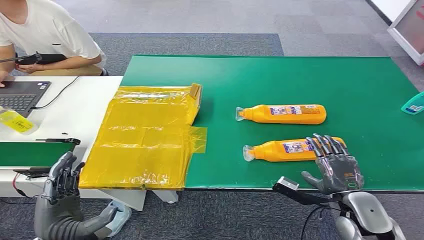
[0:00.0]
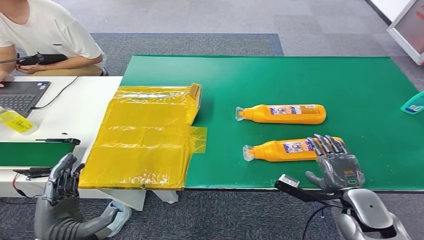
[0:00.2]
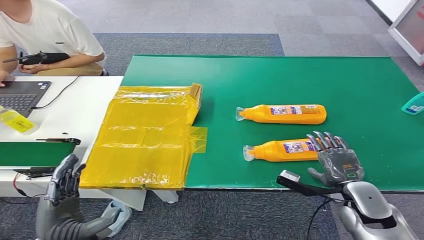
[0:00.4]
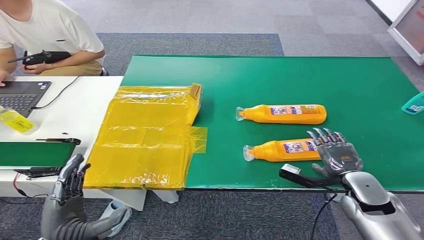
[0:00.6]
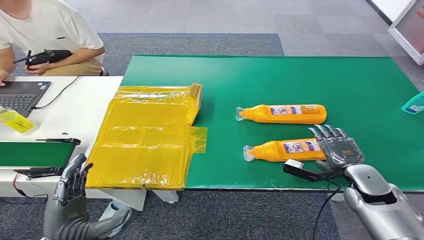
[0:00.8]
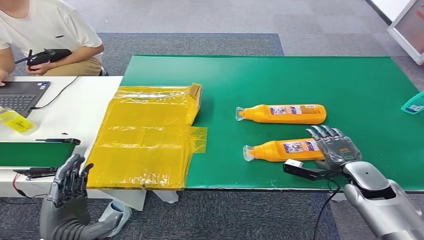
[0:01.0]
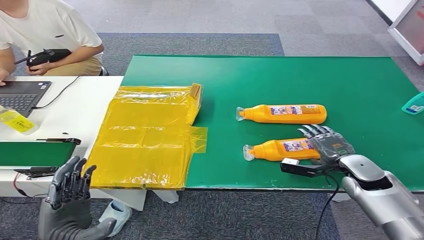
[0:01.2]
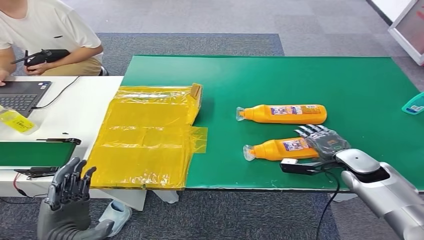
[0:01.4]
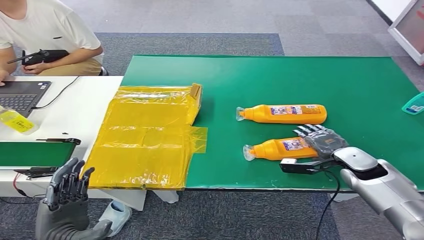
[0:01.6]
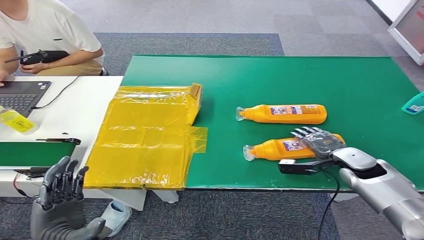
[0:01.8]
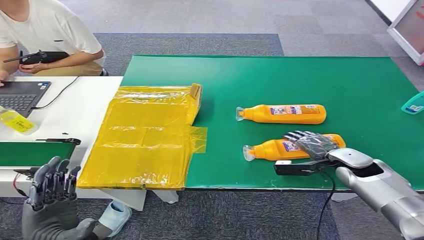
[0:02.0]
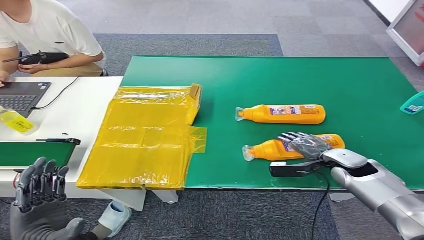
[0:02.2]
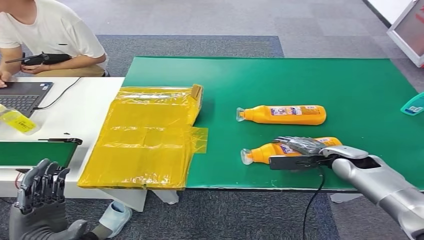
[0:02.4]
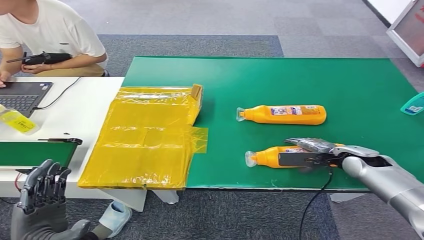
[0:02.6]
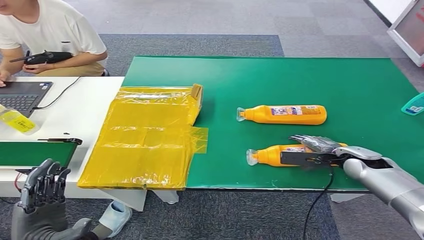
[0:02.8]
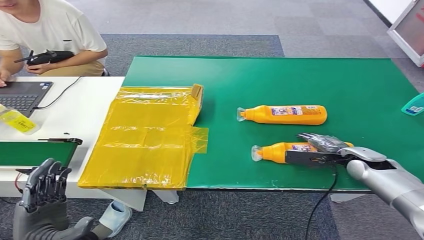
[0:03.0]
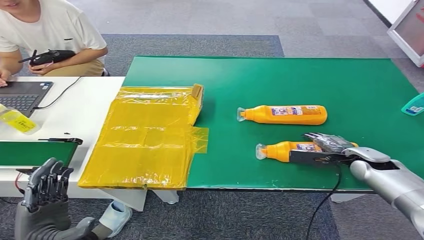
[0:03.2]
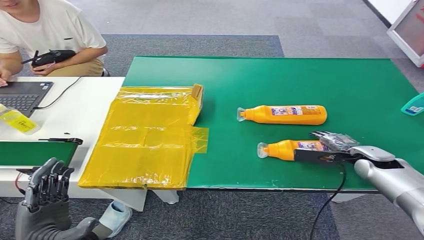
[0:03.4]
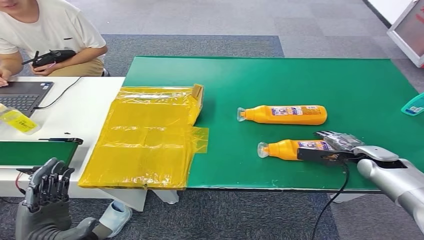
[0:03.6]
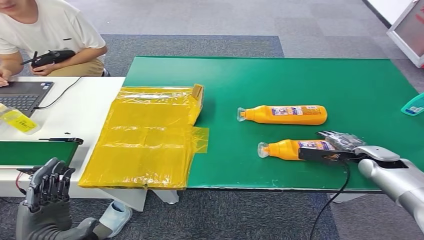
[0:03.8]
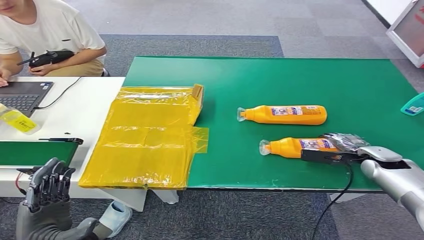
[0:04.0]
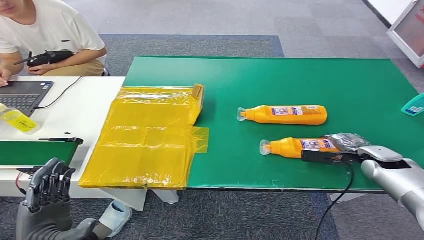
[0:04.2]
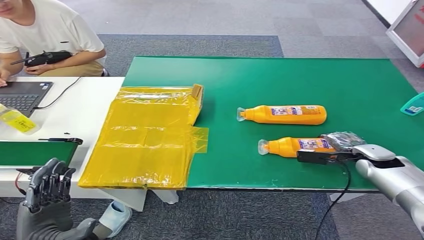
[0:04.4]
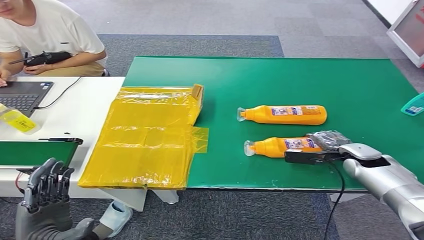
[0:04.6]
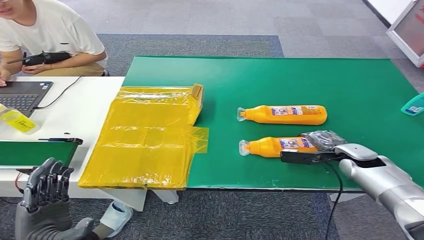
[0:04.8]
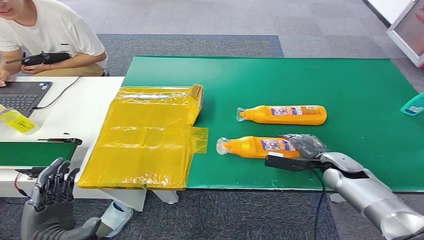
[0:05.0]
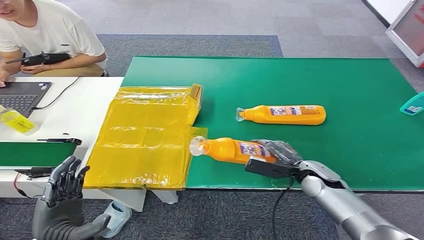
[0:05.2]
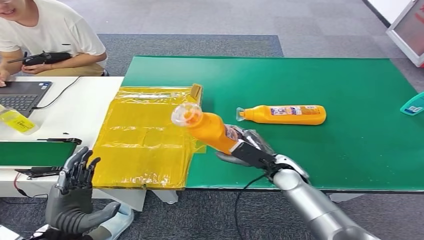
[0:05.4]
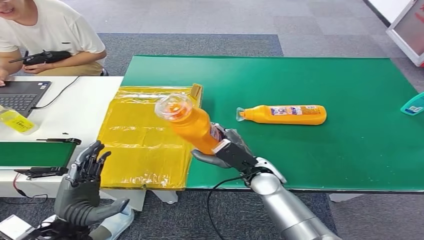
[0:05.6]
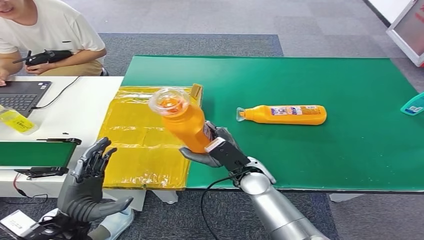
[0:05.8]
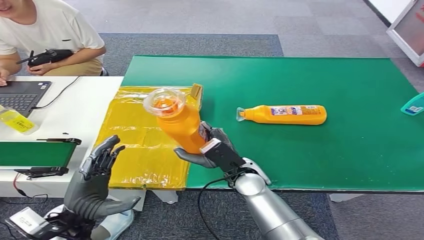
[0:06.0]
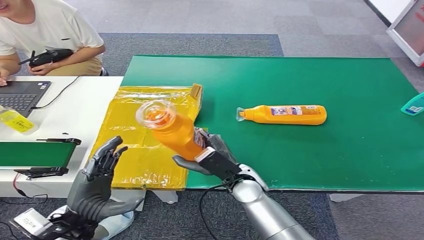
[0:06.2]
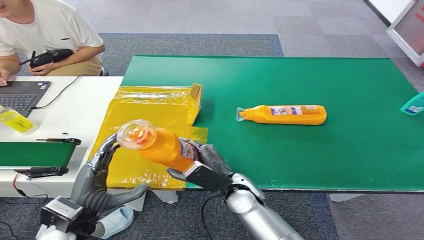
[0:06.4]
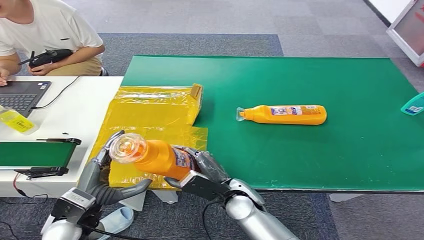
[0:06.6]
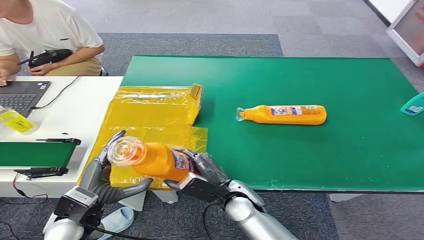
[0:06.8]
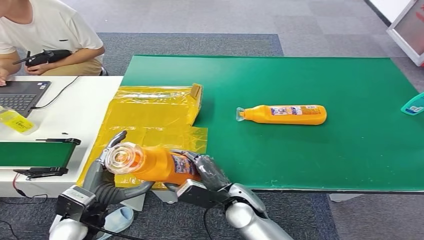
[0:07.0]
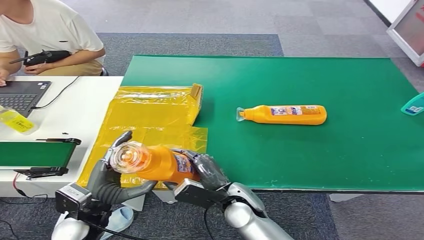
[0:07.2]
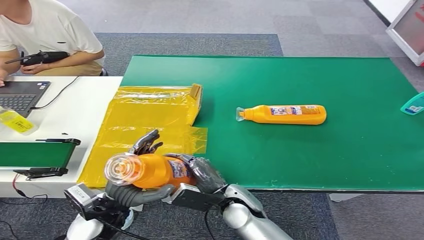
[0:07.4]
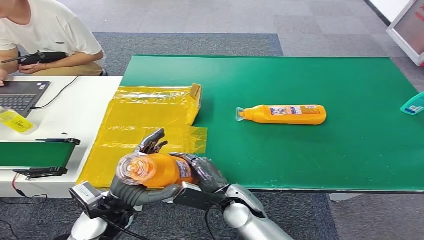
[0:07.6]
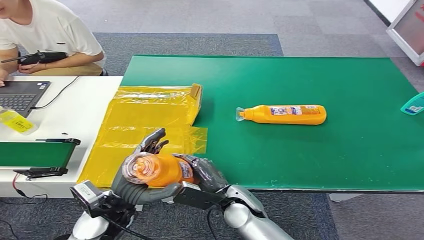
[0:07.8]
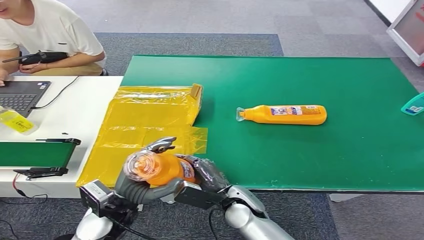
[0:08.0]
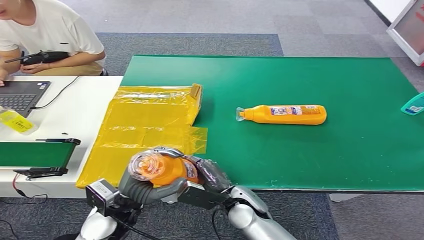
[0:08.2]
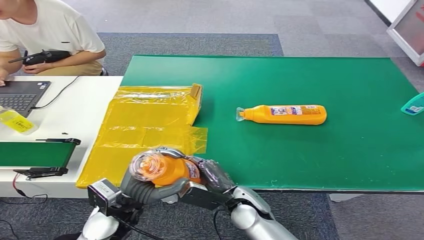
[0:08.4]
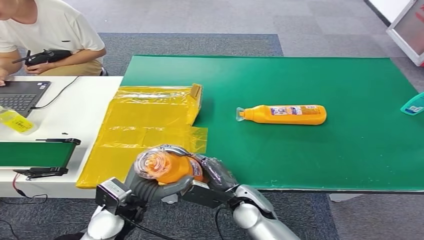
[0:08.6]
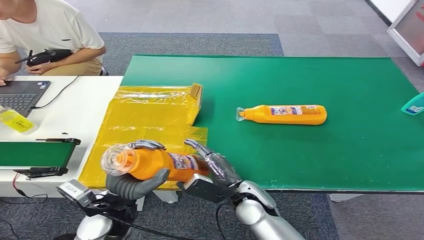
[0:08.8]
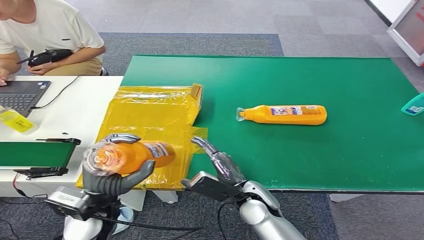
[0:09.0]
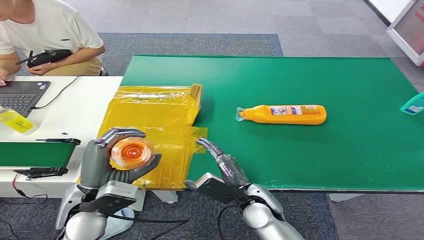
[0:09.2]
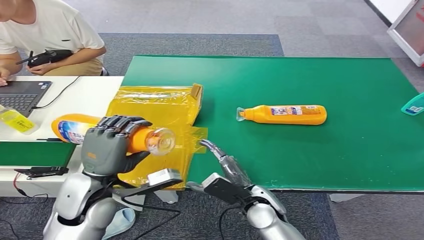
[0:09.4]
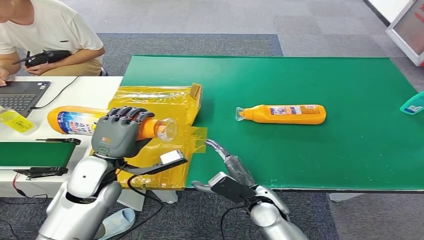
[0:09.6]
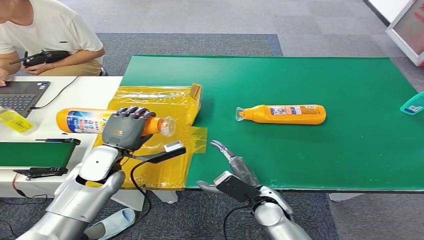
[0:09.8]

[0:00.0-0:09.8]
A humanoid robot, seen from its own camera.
Step, 0:00.0 to 0:06.4: Pick up the bottle from the table.
0:02.8 to 0:04.2: The right hand shifts some 5 cm to the right.
0:05.6 to 0:07.0: The right hand shifts some 10 cm backward and to the left.
0:07.0 to 0:08.4: The left hand travels to the right by approximately 5 cm.
0:08.4 to 0:09.8: The right hand heads to the right, covering approximately 5 cm. The left hand moves forward, approximately 10 cm.

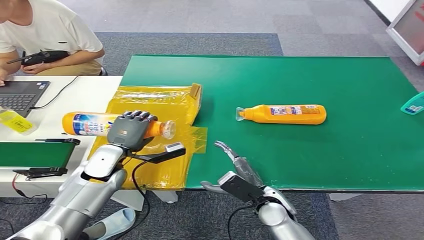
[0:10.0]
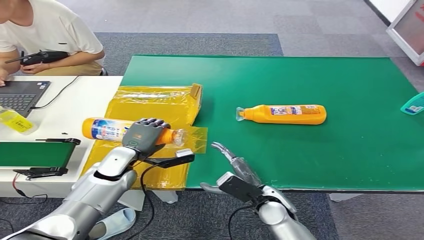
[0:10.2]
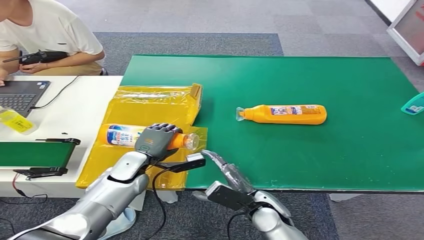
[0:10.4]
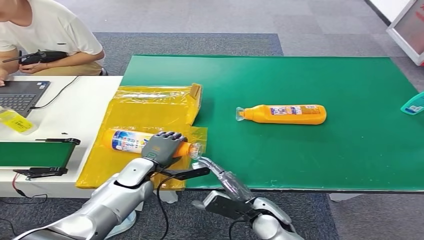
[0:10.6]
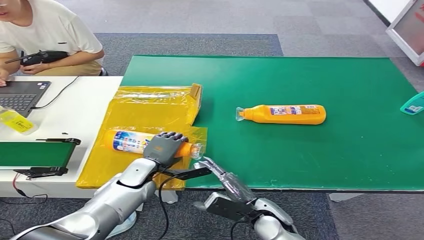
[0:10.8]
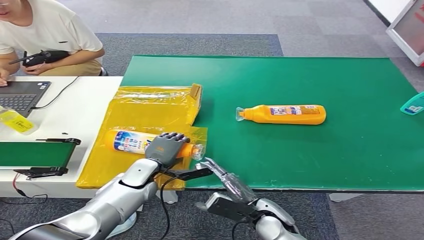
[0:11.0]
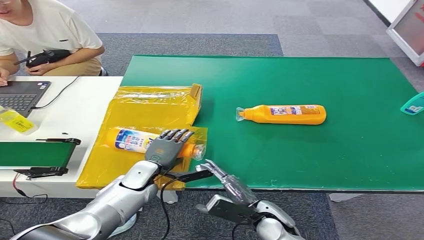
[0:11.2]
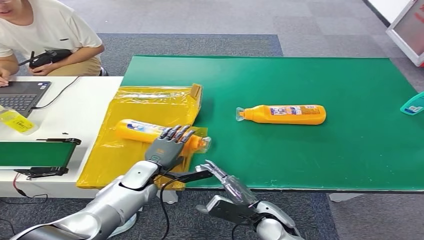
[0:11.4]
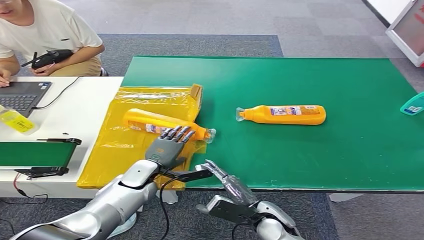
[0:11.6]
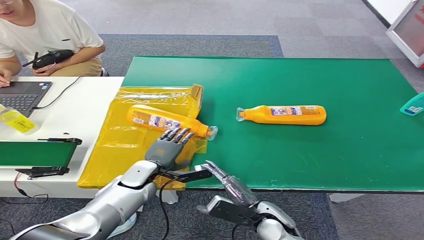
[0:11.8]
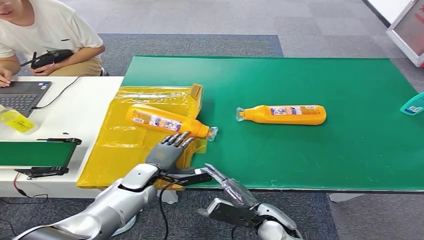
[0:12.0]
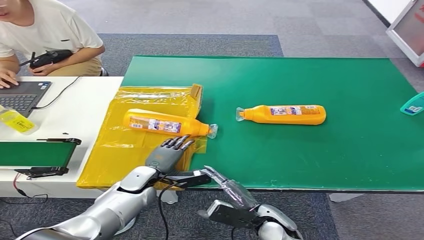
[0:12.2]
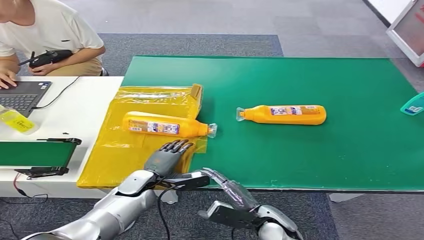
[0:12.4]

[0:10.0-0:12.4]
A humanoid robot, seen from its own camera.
Step, 0:10.0 to 0:12.2: Turn the bottle to the front side.
0:10.0 to 0:11.2: The left hand shifts about 10 cm downward and to the right.
0:11.2 to 0:12.4: The hands stay close to where they were, moving slightly.
